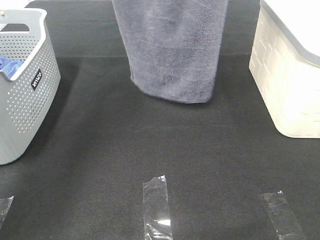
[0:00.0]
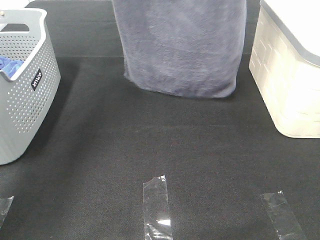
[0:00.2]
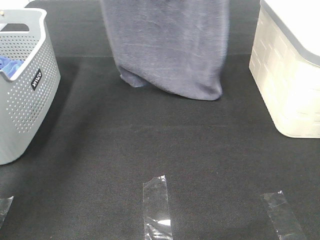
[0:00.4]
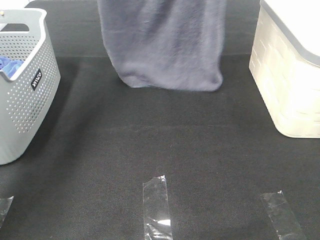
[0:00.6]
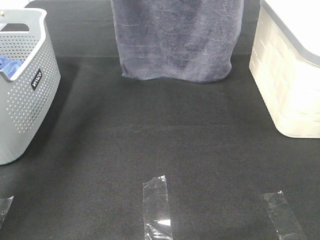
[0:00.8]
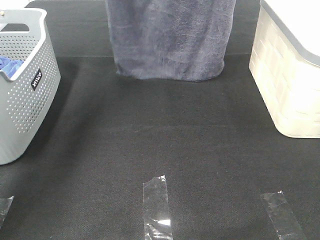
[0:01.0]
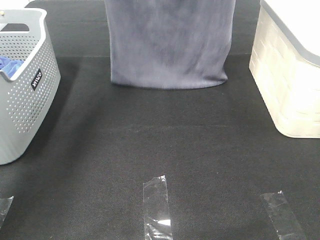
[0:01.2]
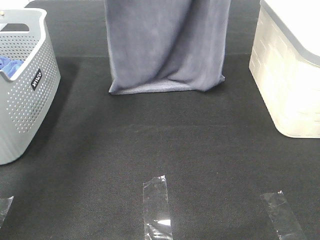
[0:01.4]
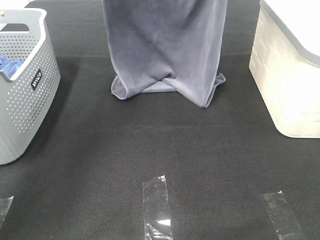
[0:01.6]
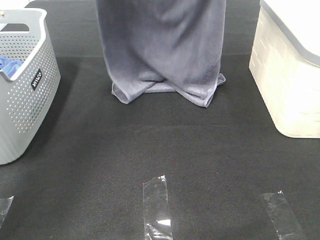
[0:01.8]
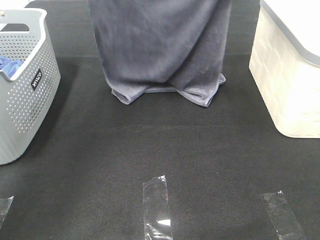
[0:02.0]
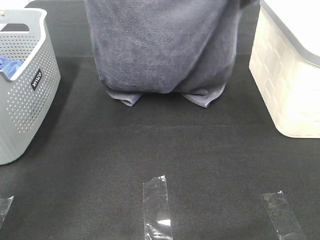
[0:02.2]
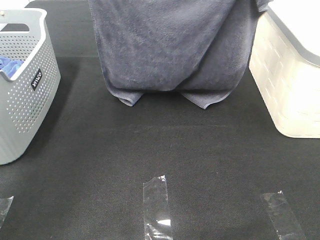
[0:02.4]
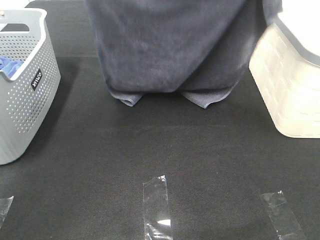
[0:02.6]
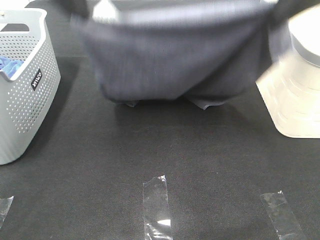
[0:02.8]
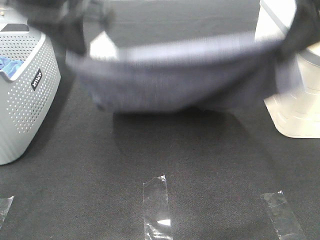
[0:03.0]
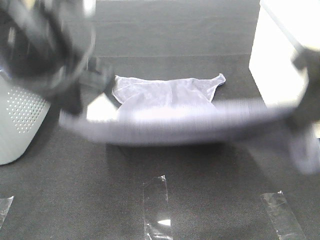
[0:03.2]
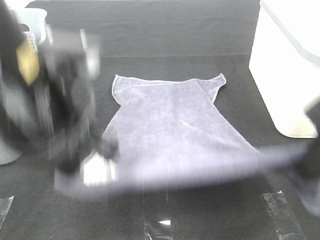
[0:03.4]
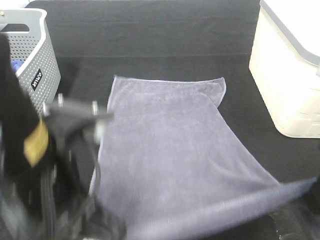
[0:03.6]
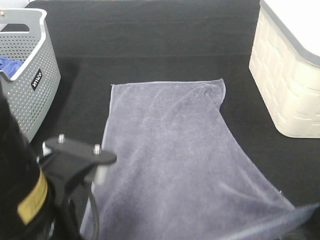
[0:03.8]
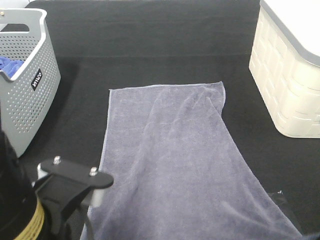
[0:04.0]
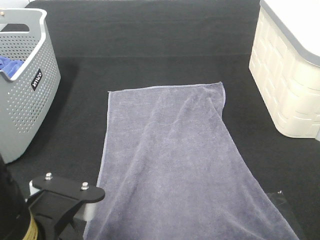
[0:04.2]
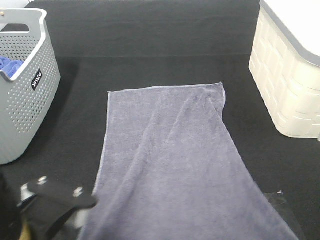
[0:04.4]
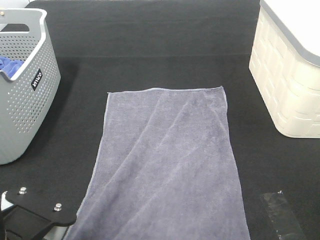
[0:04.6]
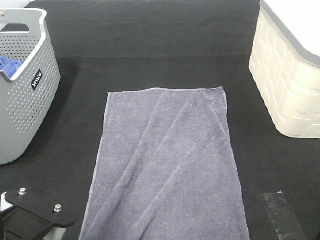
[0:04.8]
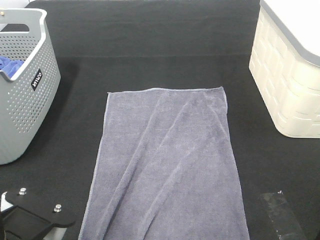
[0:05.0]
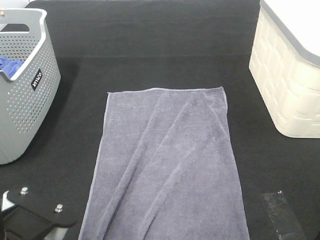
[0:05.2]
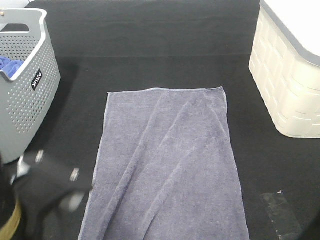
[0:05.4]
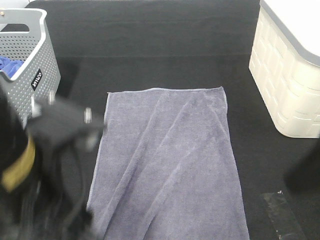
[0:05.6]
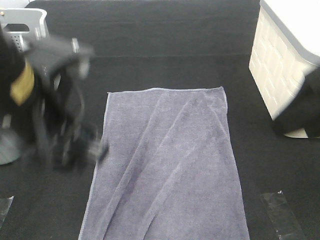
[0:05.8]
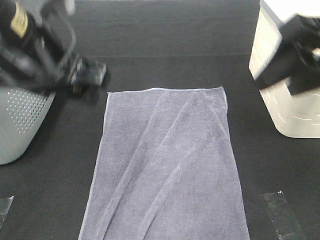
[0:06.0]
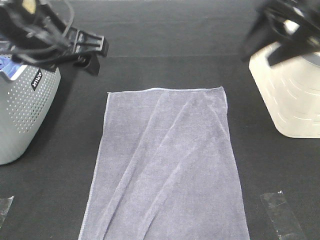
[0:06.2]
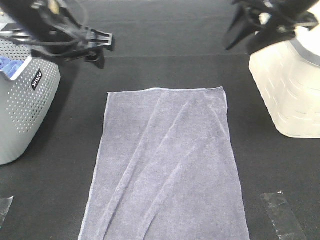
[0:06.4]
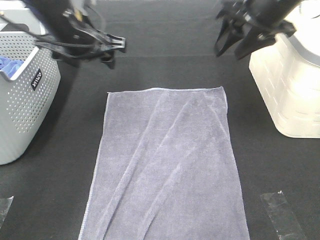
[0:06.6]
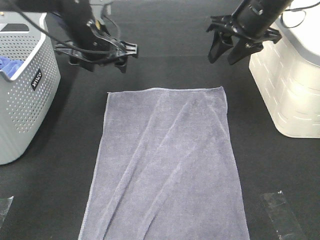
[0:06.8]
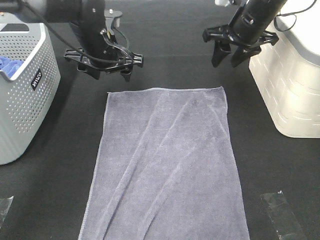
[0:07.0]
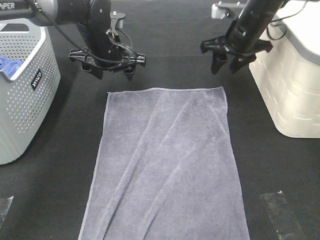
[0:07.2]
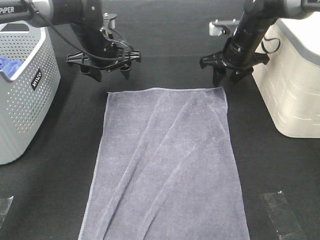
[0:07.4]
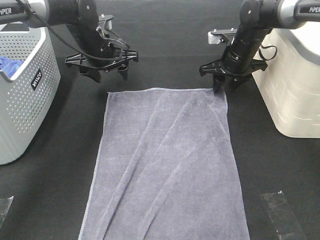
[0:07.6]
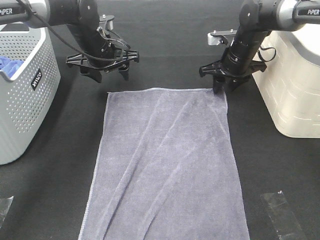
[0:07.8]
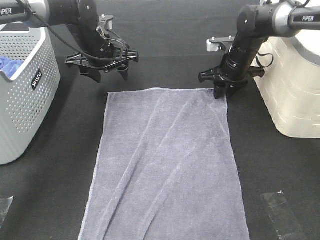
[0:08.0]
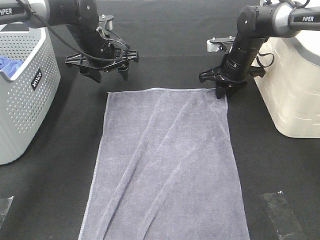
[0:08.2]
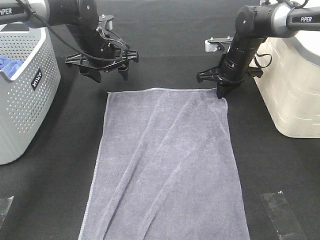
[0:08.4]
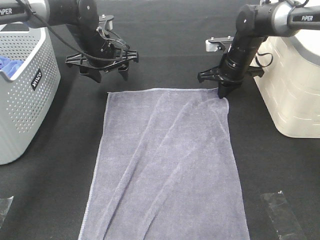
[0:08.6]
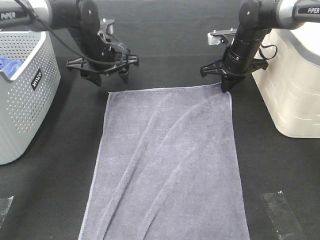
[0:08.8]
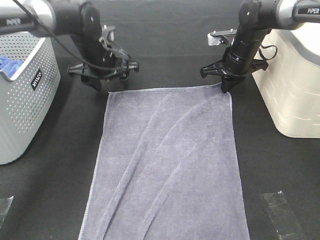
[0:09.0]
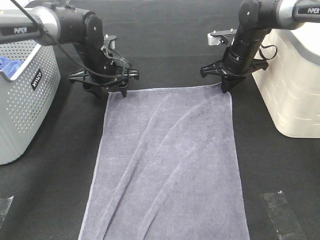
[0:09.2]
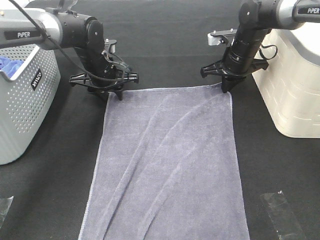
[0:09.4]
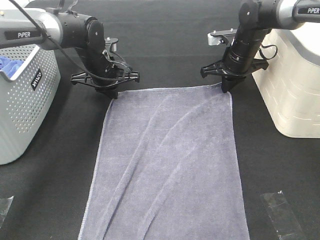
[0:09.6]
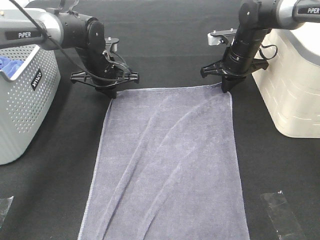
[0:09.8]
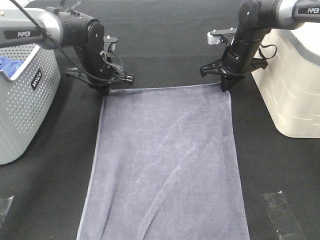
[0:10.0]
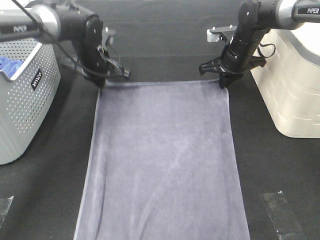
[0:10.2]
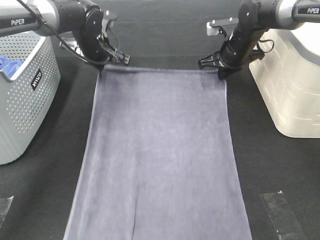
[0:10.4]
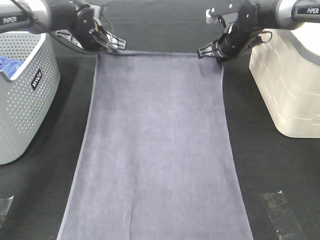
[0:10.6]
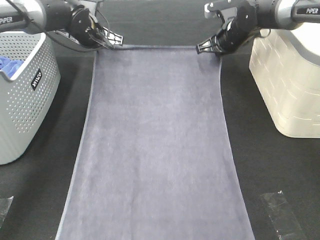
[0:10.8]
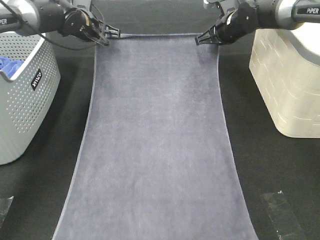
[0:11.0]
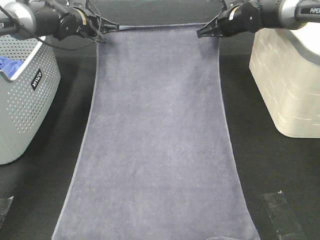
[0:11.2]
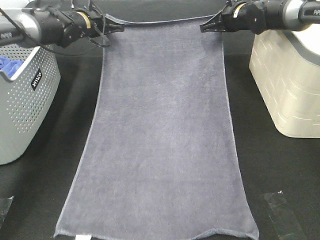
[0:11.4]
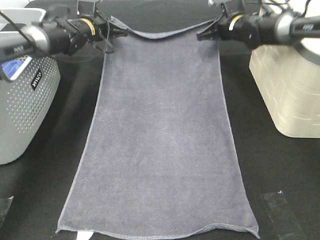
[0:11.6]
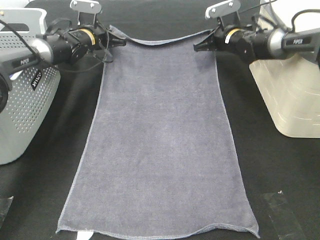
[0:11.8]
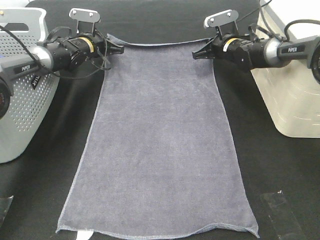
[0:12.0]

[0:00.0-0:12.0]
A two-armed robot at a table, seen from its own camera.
Task of the whole recording: Remove the towel and place it.
Step, 0:00.0 to 0:06.0: Left hand:adjust the gray towel.
Step, 0:00.0 to 0:06.0: Right hand:adjust the gray towel.
0:00.0 to 0:01.6: The grippers both shift downward by about 10 cm.
0:01.6 to 0:03.0: The grippers both shift backward by some 20 cm.
0:03.0 to 0:04.4: Both grippers move backward and downward, roughly 20 cm.
0:04.4 to 0:06.0: Both grippers travel together forward and upward, some 20 cm. The right gripper opens. The left gripper opens.
0:06.0 to 0:07.6: Both grippers move forward and downward, approximately 30 cm.
0:07.6 to 0:09.0: The right gripper closes its fingers.
0:09.0 to 0:10.4: The left gripper closes its fingers.
0:10.4 to 0:12.0: The left gripper travels forward and downward by roughly 10 cm. The right gripper shifts by approximately 5 cm.

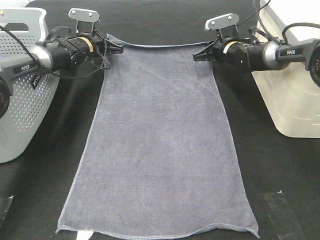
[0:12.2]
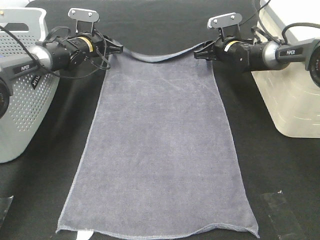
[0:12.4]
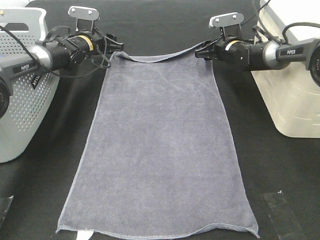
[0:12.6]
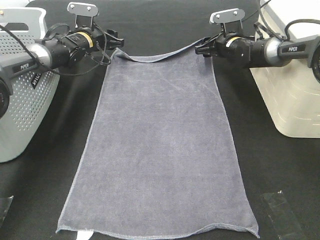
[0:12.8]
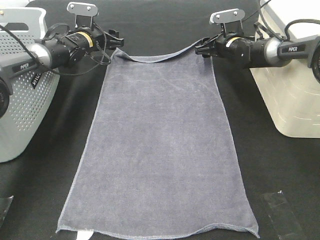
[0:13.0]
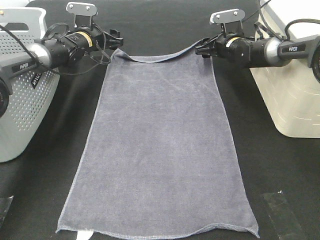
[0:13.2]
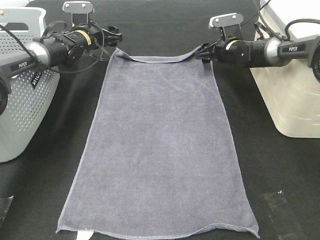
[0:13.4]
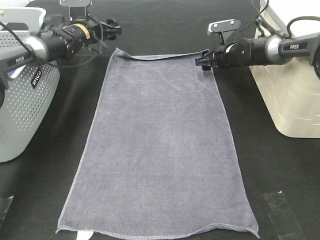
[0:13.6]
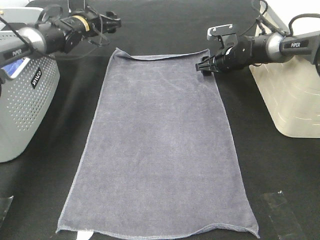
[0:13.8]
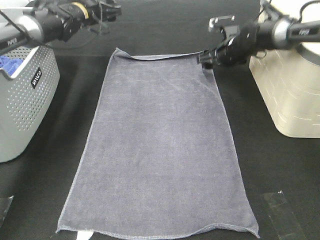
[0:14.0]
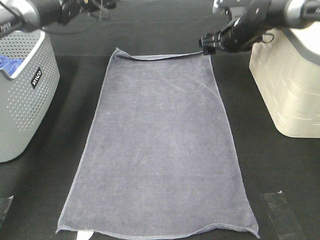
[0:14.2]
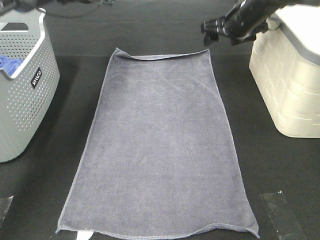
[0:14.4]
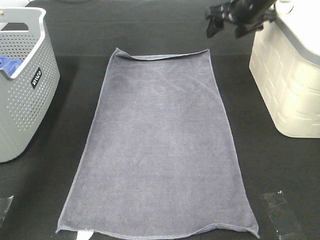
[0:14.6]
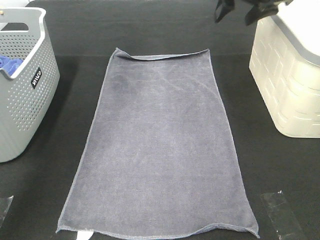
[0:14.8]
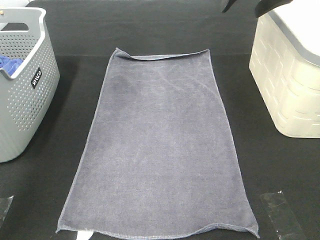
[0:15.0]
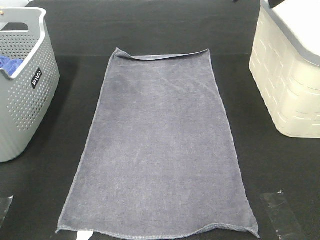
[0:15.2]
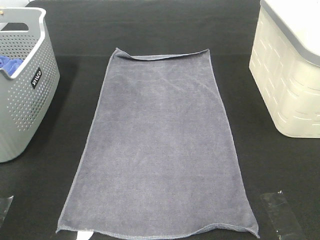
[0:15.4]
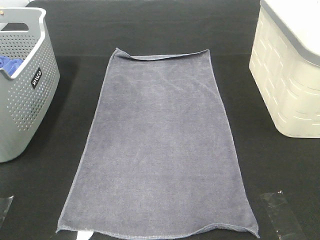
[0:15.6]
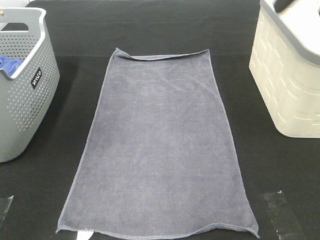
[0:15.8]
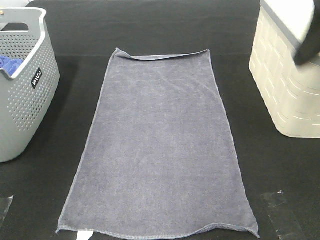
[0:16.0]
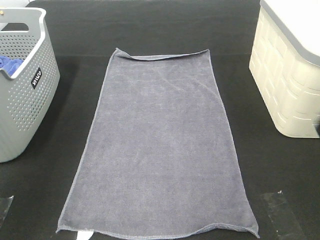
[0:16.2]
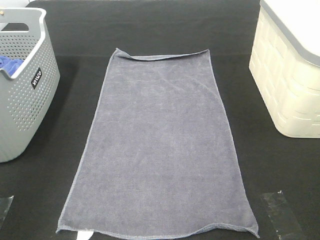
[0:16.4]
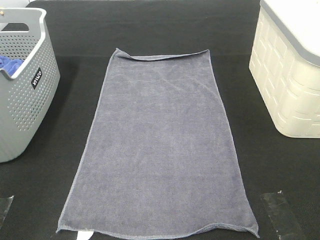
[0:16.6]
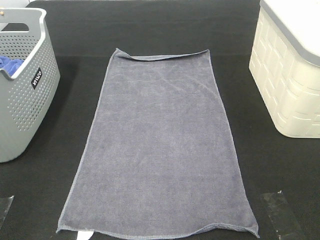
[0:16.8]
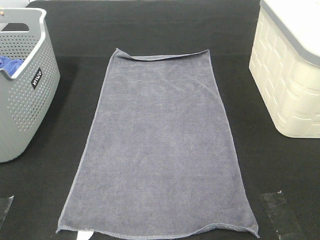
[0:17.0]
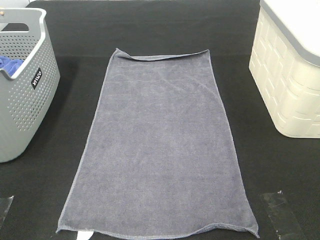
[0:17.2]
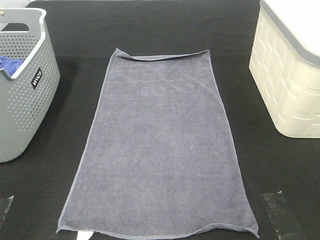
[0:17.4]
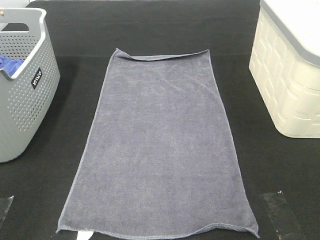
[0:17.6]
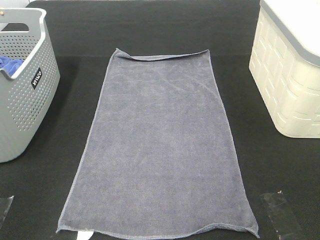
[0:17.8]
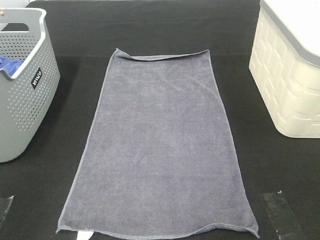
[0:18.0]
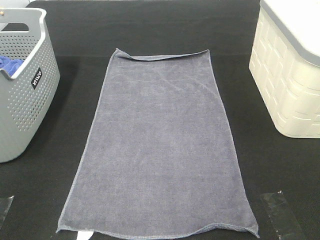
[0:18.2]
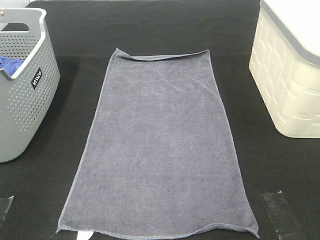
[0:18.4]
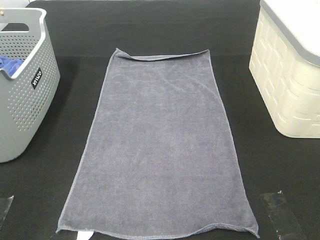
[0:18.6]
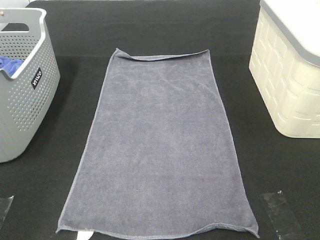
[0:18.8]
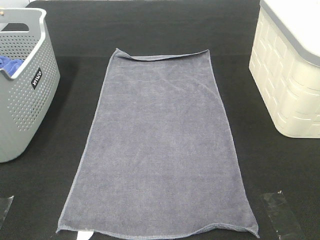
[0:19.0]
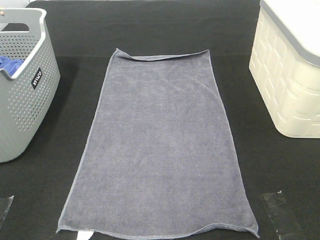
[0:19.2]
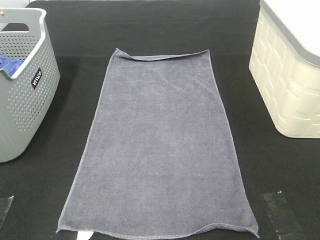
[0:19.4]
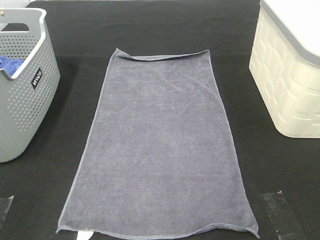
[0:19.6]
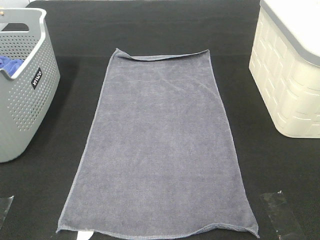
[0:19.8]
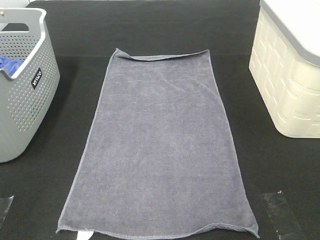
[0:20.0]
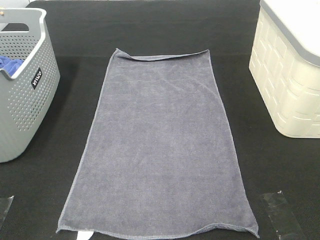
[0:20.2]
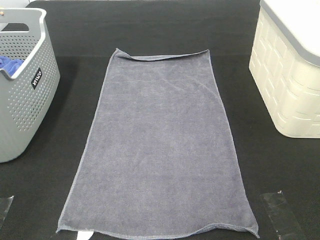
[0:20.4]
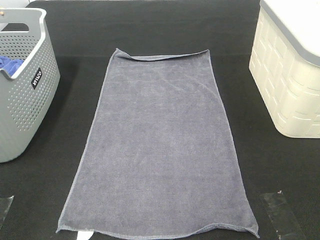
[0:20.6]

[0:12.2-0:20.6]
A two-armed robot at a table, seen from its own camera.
Task of the whole recording: Remove the towel and place it.
0:12.2 to 0:13.6: The left gripper opens up. Meanwhile the right gripper opens.
0:13.6 to 0:15.0: Both grippers travel together upward and backward, roughly 30 cm.
0:15.0 to 0:16.4: Both grippers move backward, about 35 cm.
0:19.2 to 0:20.6: The two grippers keep their place.

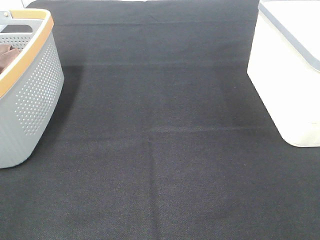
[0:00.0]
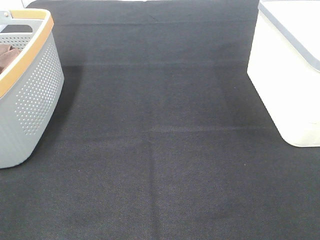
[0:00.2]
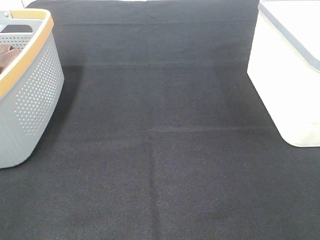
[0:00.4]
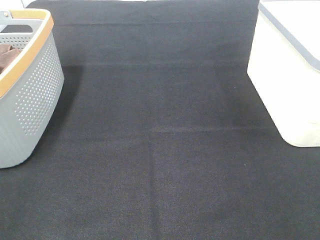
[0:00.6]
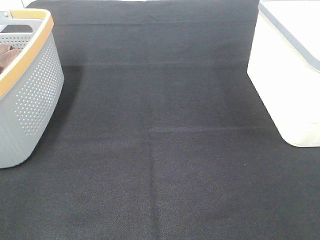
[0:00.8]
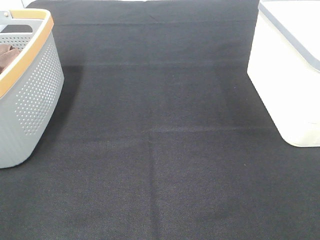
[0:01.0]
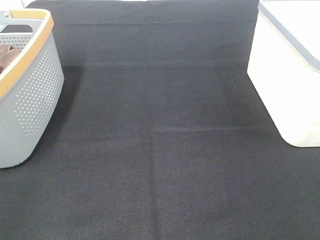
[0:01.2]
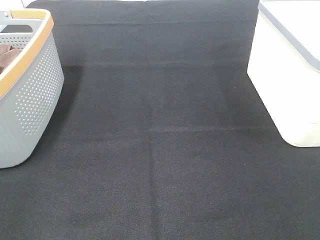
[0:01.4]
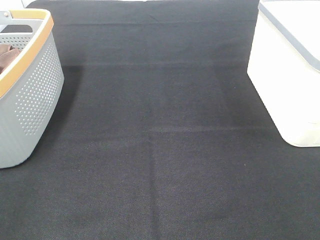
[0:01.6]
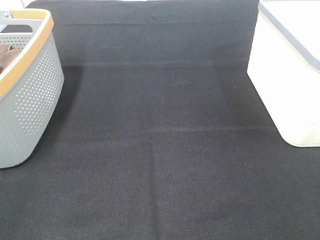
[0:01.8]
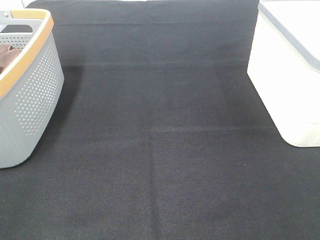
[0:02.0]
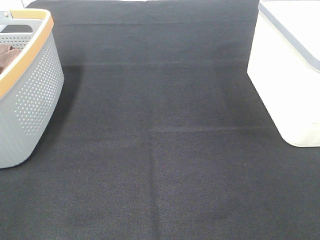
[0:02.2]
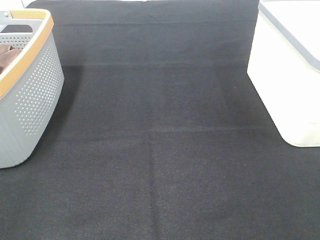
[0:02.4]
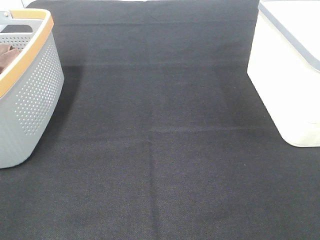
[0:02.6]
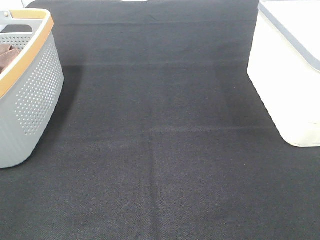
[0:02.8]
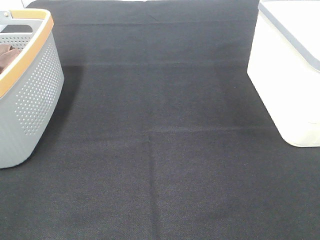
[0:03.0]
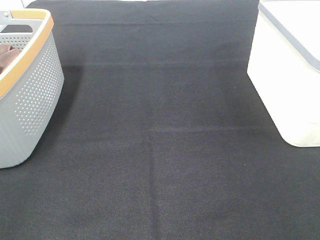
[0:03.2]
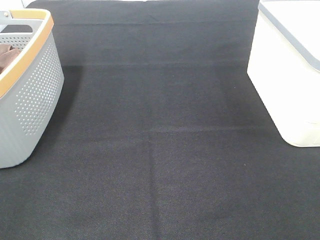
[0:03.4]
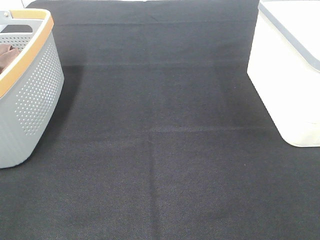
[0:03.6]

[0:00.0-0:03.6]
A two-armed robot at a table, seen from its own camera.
Task of the whole recording: Remove the towel and place it.
0:00.0 to 0:03.6: Both grippers stay put.
